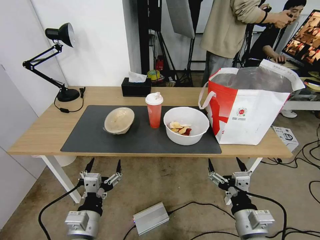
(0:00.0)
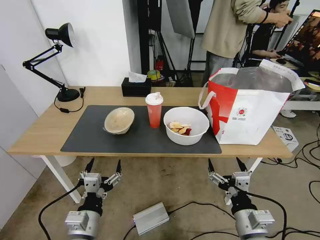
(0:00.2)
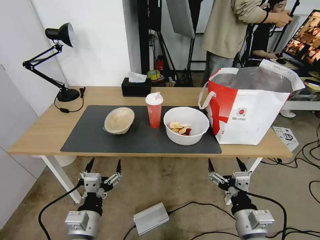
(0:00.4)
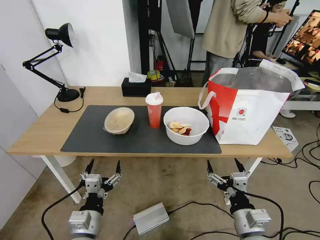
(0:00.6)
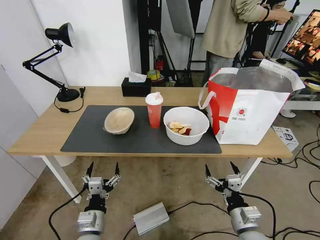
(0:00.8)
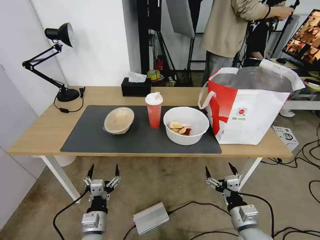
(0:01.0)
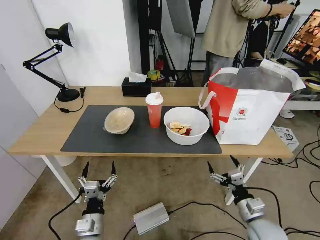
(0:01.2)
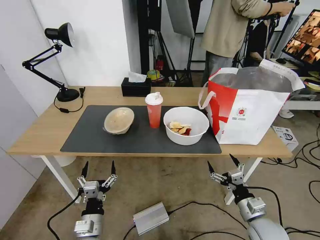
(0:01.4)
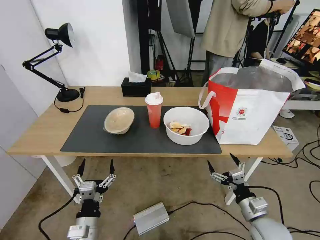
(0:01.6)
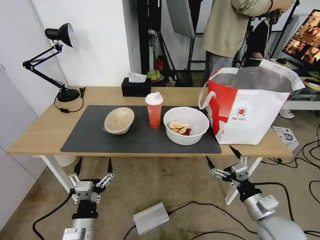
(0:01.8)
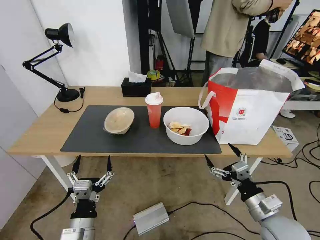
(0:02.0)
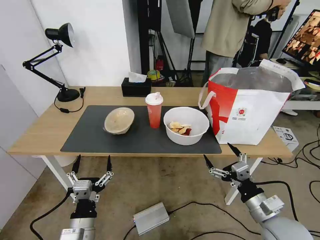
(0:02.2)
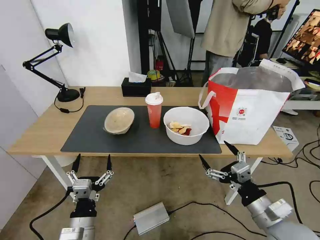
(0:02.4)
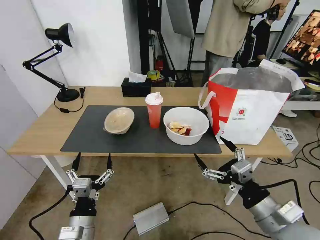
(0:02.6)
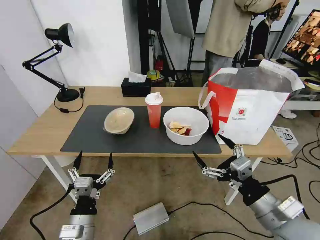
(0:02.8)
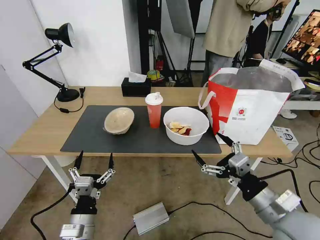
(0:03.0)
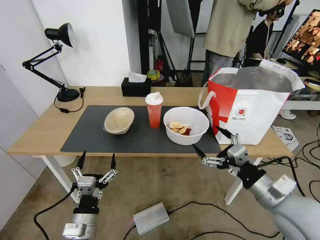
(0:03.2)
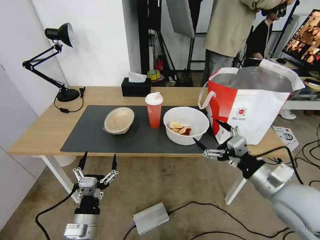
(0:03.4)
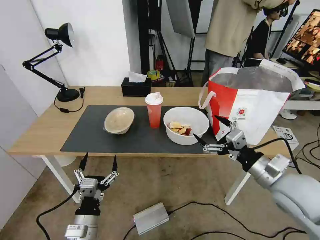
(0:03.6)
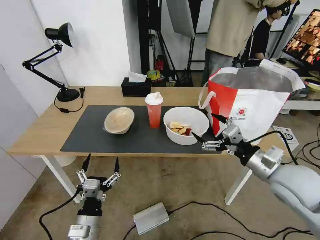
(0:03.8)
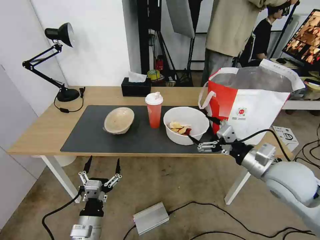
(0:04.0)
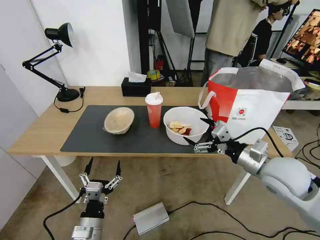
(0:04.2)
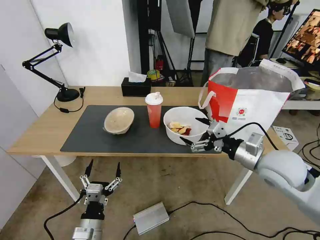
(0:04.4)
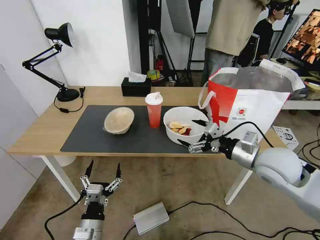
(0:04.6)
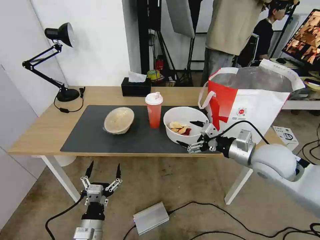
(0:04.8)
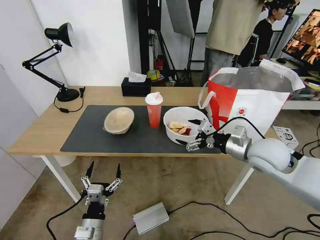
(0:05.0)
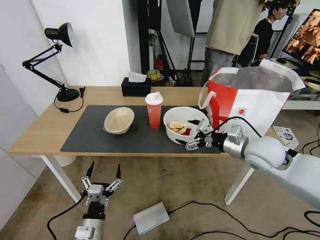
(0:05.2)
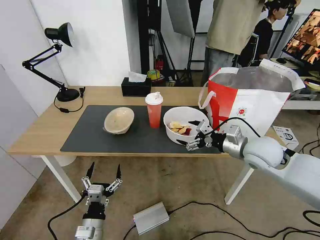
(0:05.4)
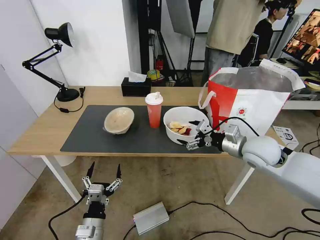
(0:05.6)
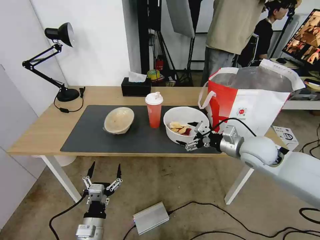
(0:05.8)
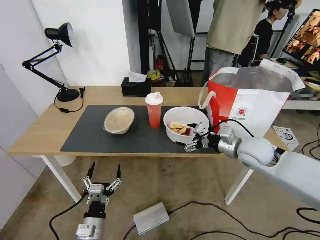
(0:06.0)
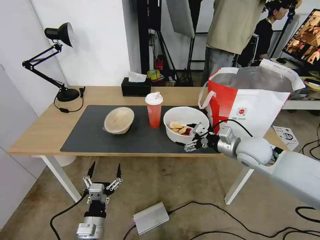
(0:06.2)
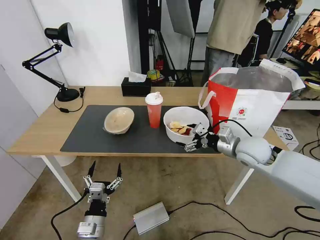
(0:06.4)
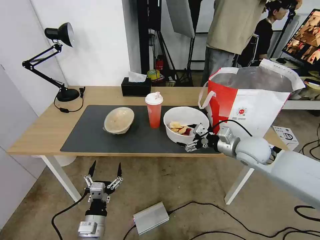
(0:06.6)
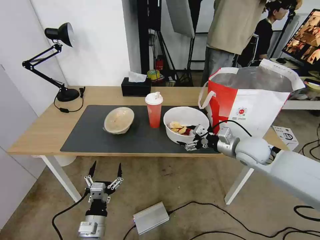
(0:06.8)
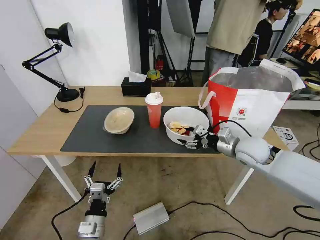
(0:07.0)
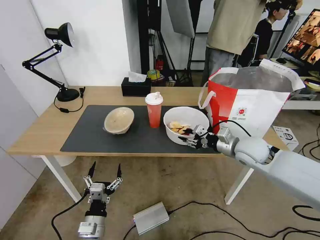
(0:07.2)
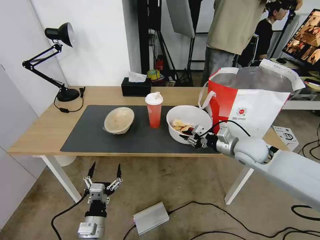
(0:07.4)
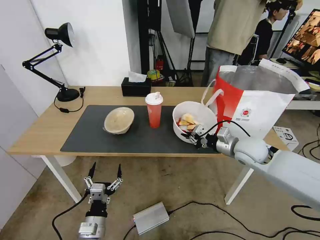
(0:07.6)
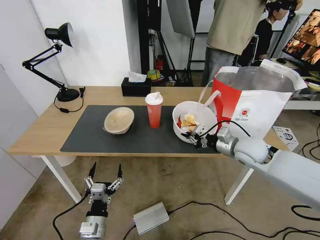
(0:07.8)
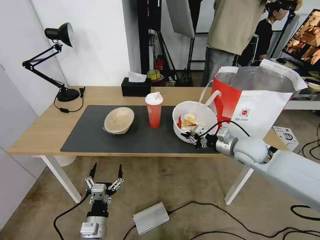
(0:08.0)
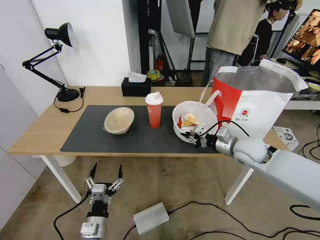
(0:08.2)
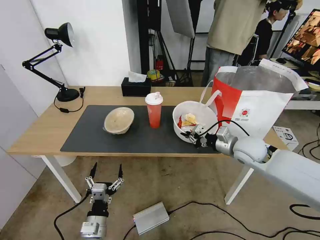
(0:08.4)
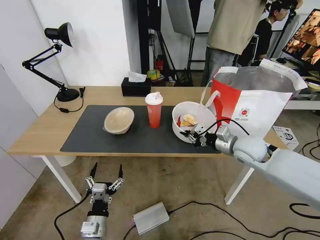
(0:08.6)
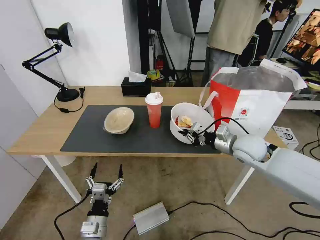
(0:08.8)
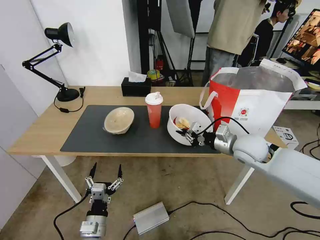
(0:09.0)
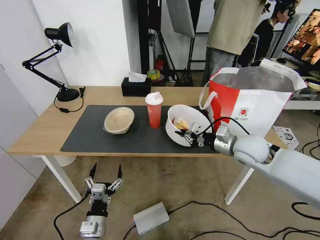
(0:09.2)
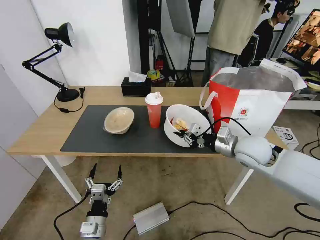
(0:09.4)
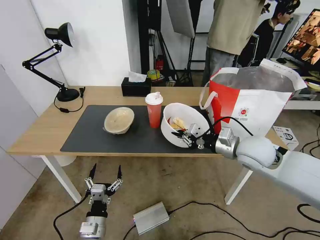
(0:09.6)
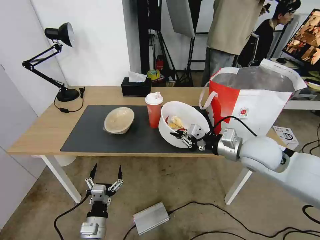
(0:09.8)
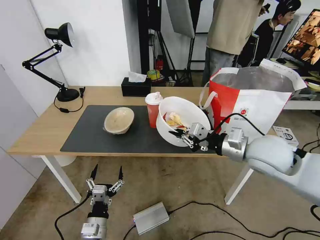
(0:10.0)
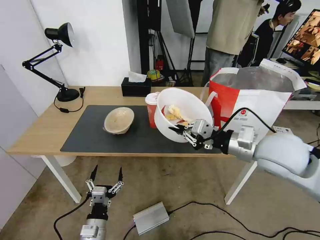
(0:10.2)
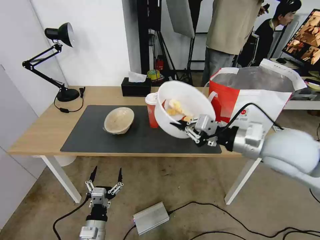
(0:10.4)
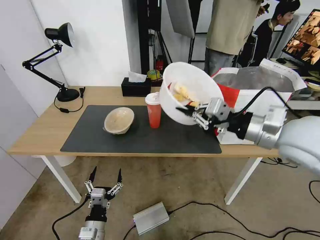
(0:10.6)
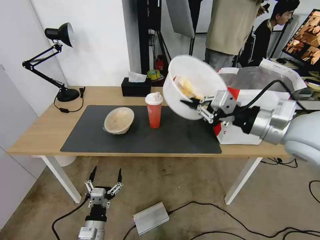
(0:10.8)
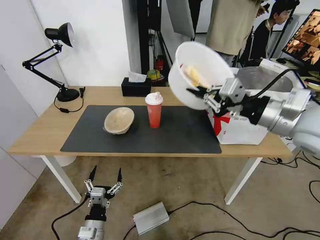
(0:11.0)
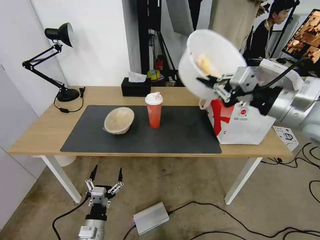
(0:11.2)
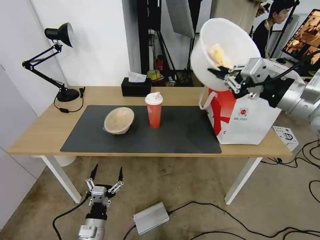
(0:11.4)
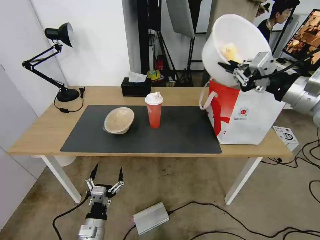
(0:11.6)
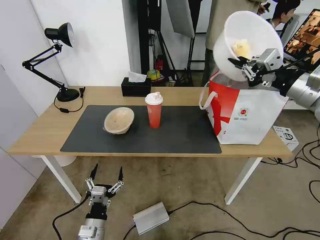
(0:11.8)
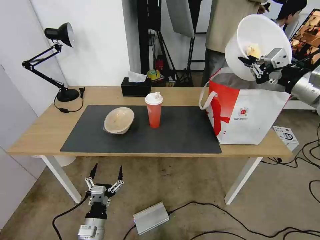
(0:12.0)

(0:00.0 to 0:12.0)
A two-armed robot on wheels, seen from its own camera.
Task of the whole recording: Pick up the trash from the table and place it into the takeout bag.
0:01.6 - 0:03.0: The right gripper shifts approximately 15 cm upward.
0:03.0 - 0:04.4: The right gripper goes some 15 cm forward.
0:04.4 - 0:06.0: The right gripper heads forward, covering about 10 cm.
0:06.0 - 0:07.6: The right gripper closes.
0:07.6 - 0:09.0: The grippers stay close to where they were, moving slightly.
0:09.0 - 0:10.4: The right gripper is displaced upward and backward by approximately 15 cm.
0:10.4 - 0:12.0: The right gripper goes approximately 20 cm to the right, forward and upward.

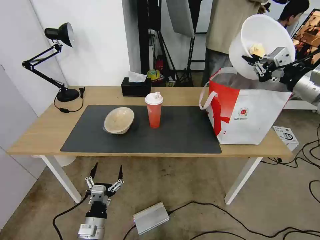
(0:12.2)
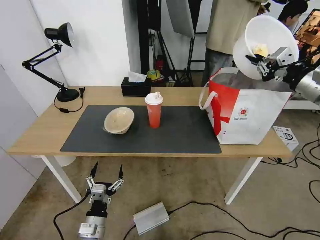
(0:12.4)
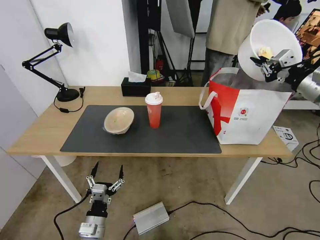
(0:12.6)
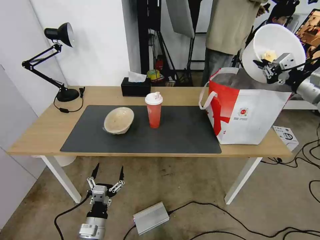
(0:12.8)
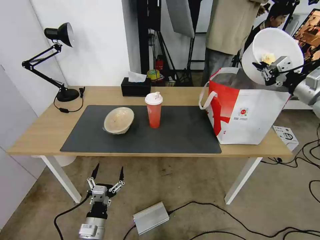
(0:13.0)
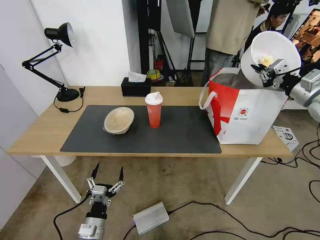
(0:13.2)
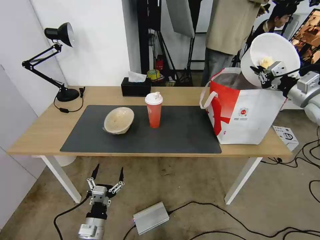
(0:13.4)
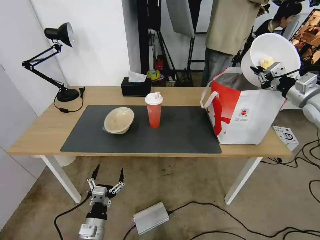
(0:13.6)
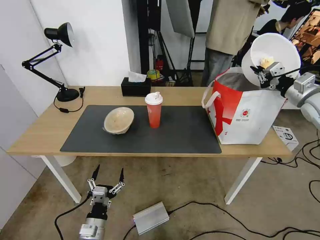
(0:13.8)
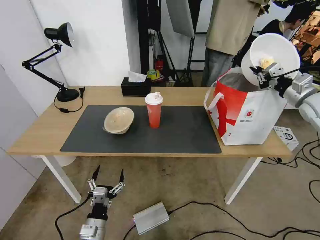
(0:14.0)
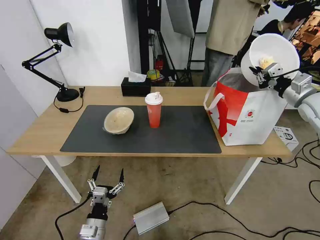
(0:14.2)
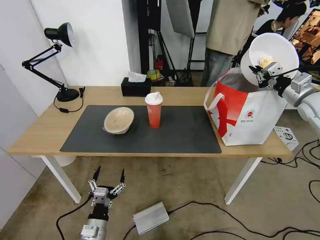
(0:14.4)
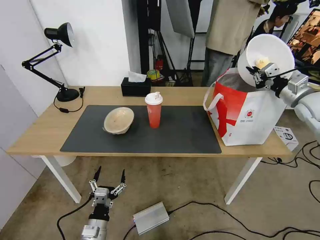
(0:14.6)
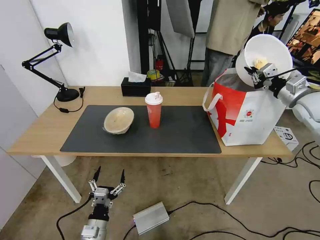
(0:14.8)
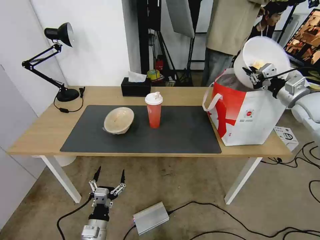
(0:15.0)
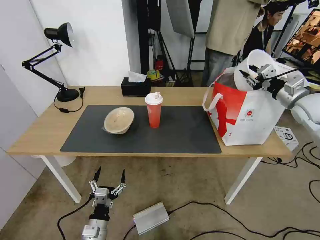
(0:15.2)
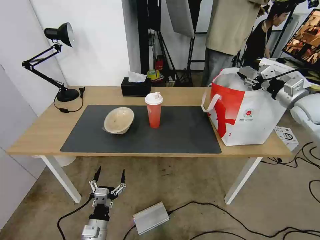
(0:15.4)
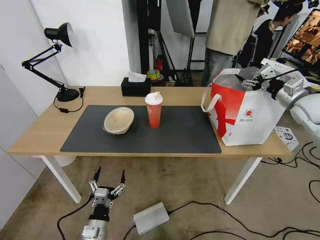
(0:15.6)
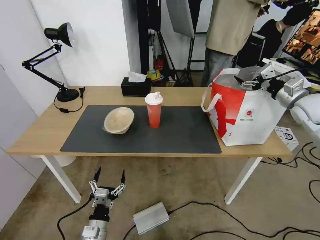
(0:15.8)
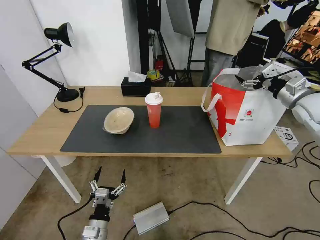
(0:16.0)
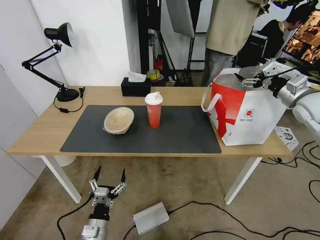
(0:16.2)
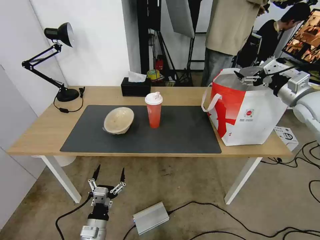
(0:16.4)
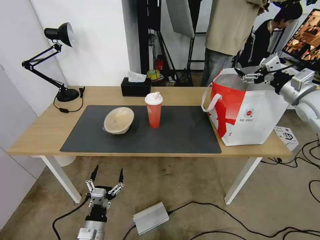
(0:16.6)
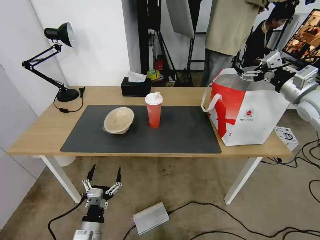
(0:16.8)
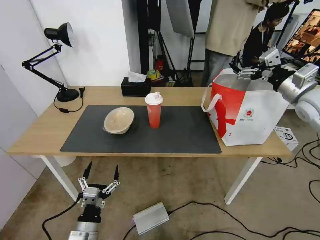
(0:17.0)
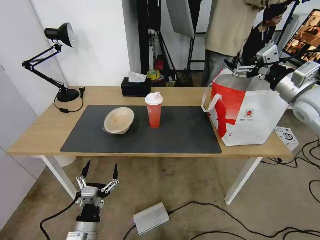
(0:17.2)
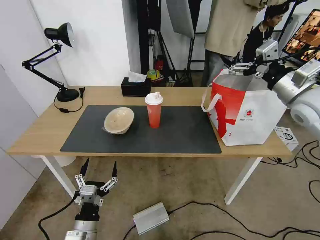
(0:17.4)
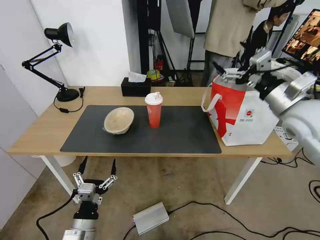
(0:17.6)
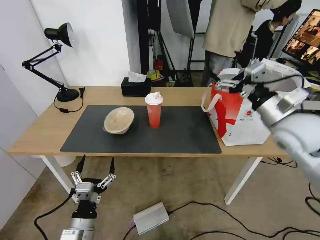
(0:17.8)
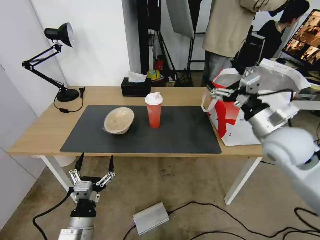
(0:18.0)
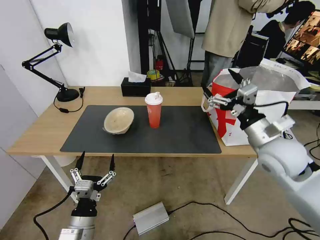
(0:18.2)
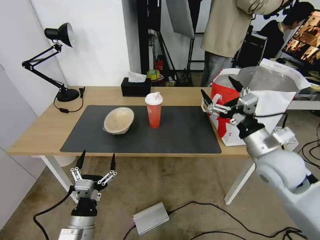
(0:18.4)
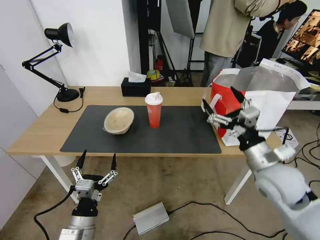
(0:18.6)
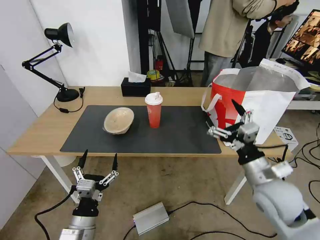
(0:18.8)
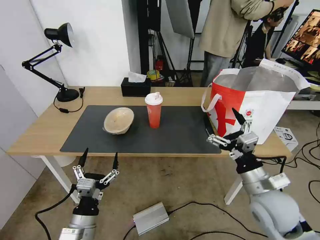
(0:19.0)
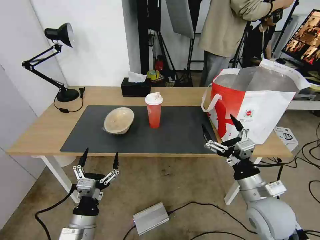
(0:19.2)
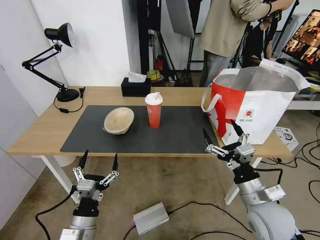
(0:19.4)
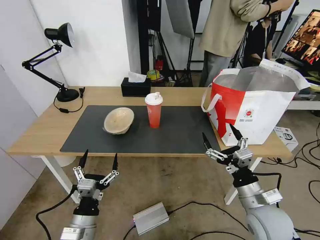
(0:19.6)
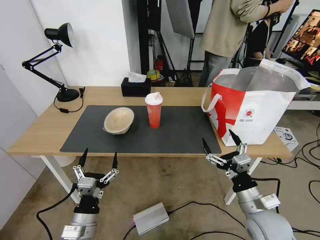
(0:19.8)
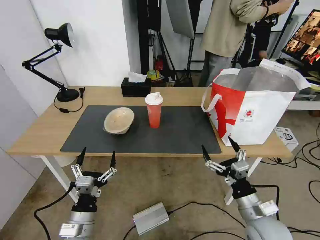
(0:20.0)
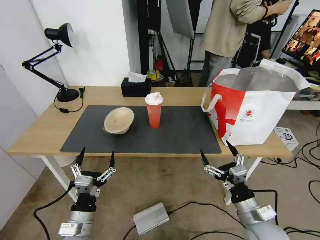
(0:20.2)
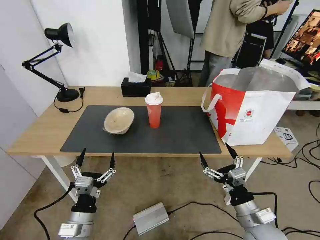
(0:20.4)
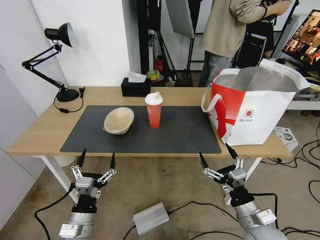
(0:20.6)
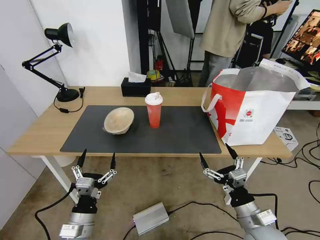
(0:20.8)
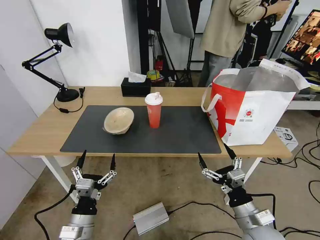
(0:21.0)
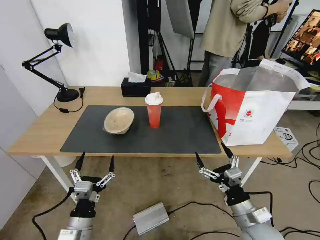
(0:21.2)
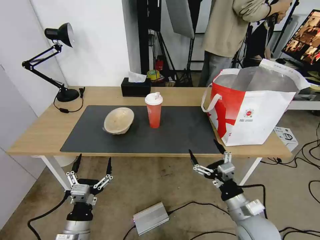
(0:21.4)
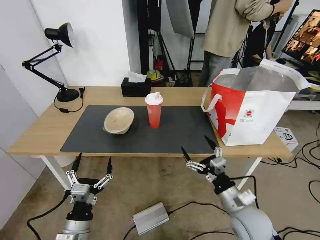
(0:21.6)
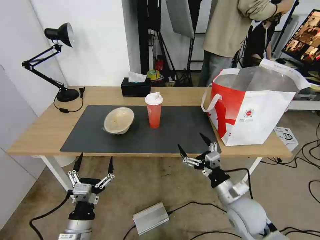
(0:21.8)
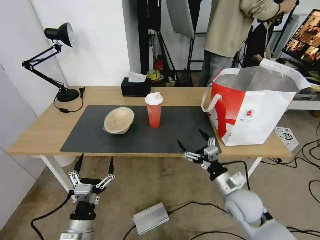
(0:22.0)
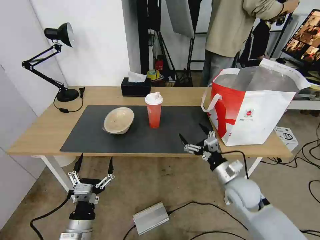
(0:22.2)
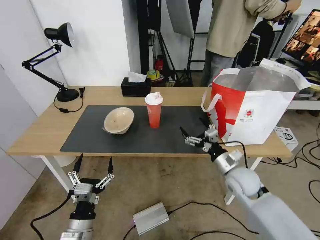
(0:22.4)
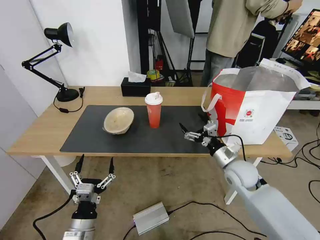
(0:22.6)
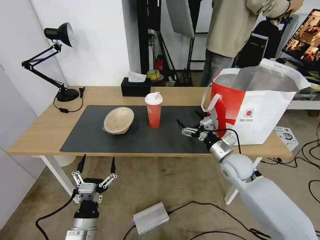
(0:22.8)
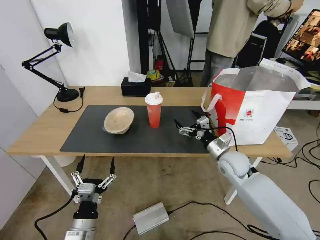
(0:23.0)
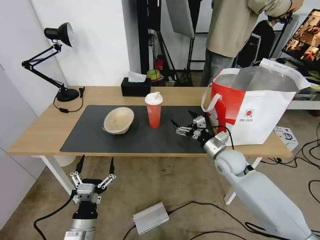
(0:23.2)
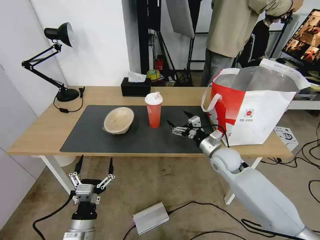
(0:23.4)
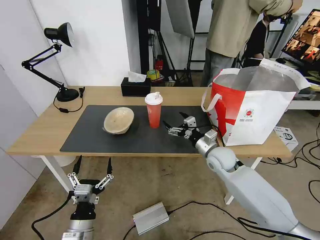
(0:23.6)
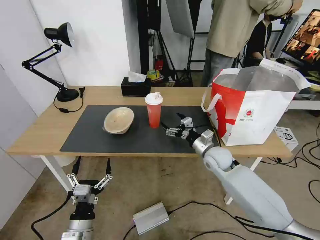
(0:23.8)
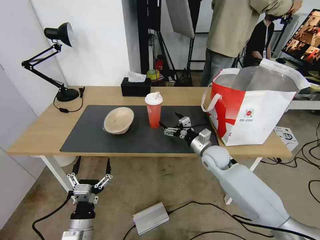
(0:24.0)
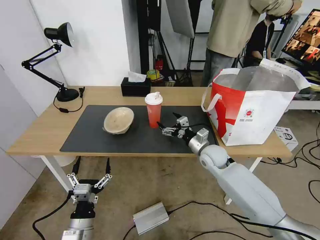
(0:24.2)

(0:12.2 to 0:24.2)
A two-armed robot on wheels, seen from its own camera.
Task of the whole recording: Pick up the trash from the table and place it into the takeout bag.
0:12.2 - 0:13.8: The right gripper heads forward, downward and to the right, covering approximately 10 cm.
0:13.8 - 0:15.2: The grippers move only a little.
0:15.2 - 0:16.6: The right gripper opens.
0:16.6 - 0:18.2: The left gripper moves upward, approximately 5 cm; the right gripper goes some 20 cm to the left, backward and downward.
0:18.2 - 0:19.8: The right gripper is displaced downward and backward by approximately 20 cm.
0:19.8 - 0:21.2: The grippers stay close to where they were, moving slightly.
0:21.2 - 0:22.6: The right gripper heads forward, covering some 20 cm.
0:22.6 - 0:24.2: The right gripper shifts about 10 cm forward and to the left.
